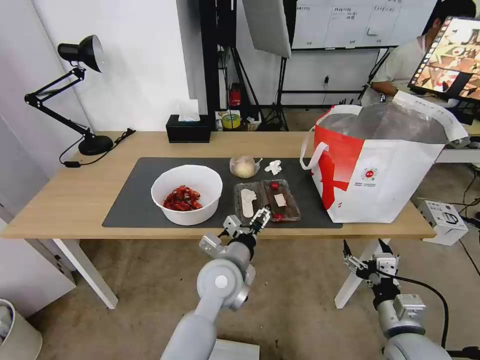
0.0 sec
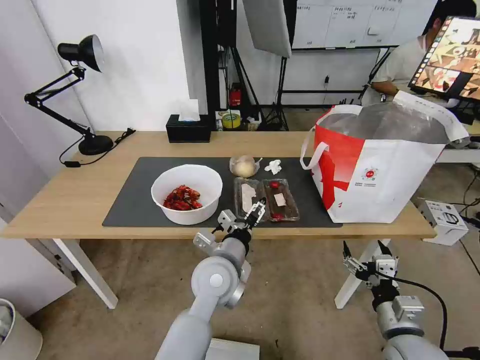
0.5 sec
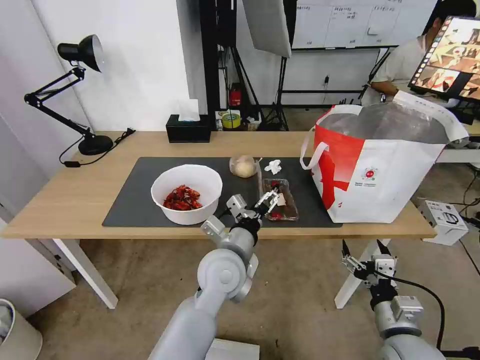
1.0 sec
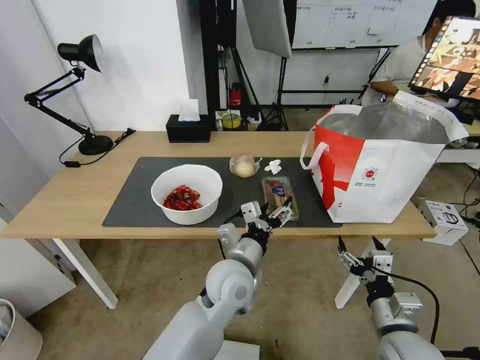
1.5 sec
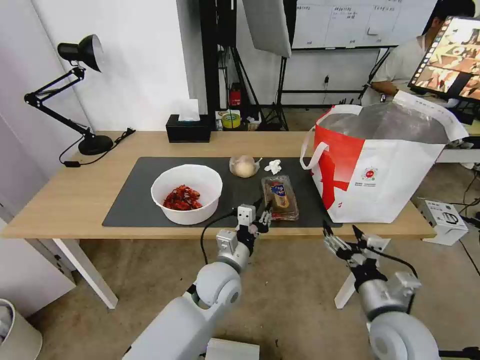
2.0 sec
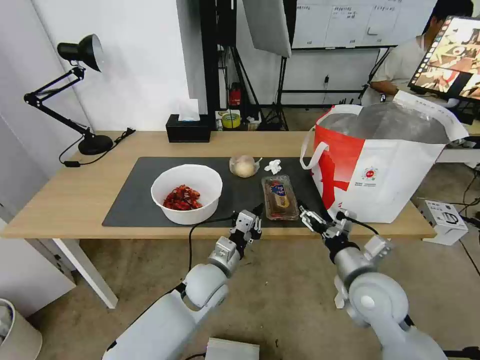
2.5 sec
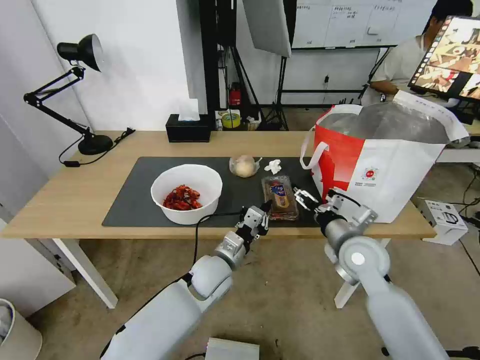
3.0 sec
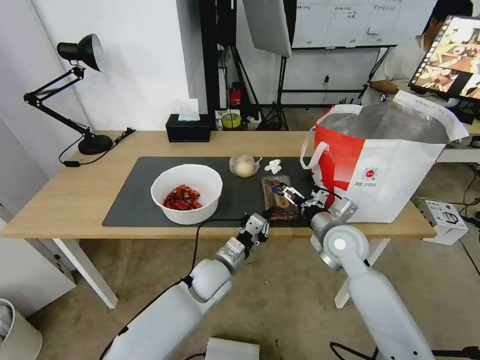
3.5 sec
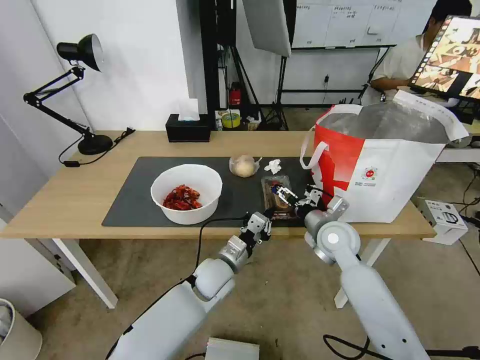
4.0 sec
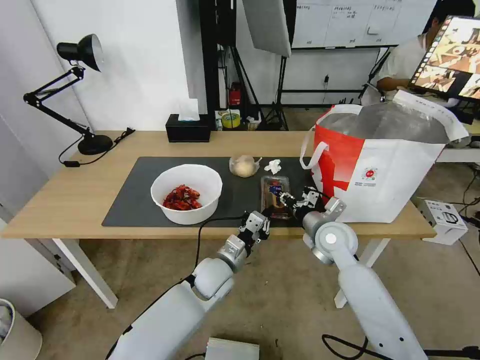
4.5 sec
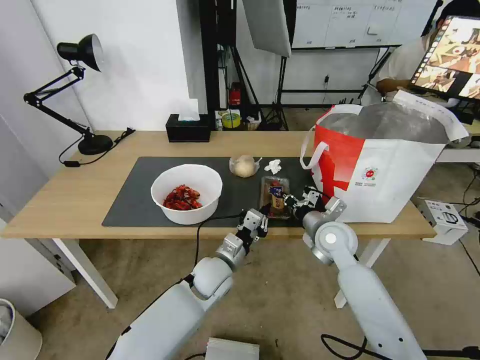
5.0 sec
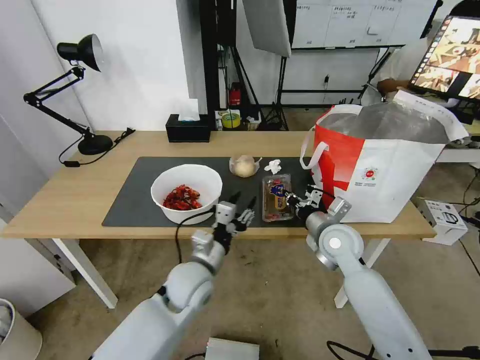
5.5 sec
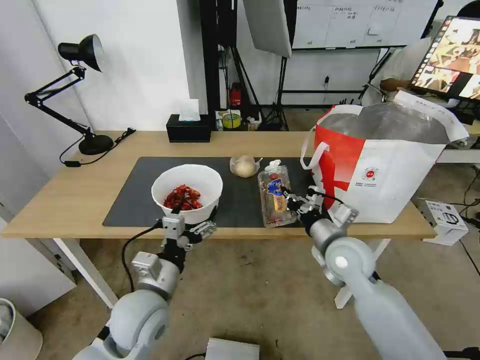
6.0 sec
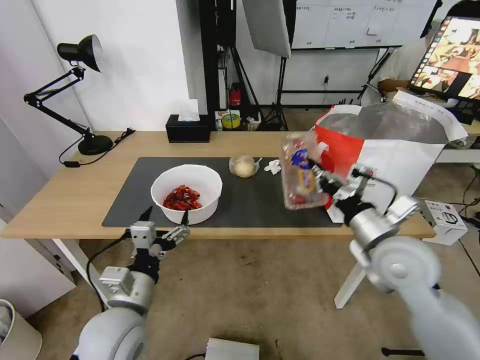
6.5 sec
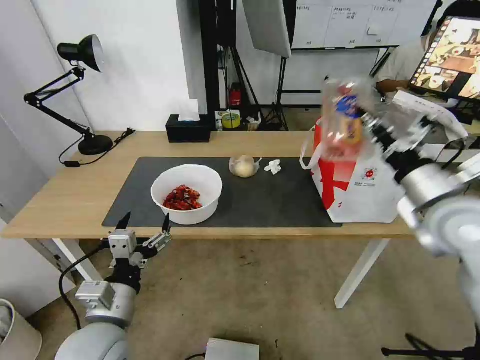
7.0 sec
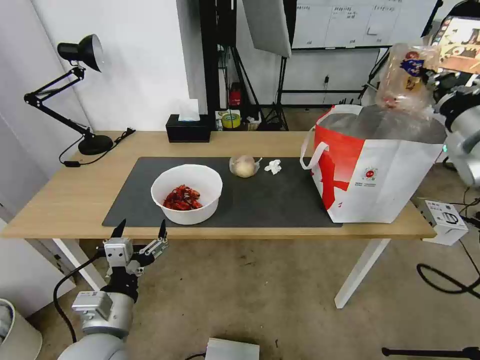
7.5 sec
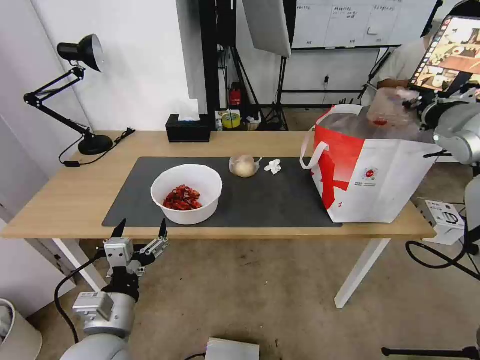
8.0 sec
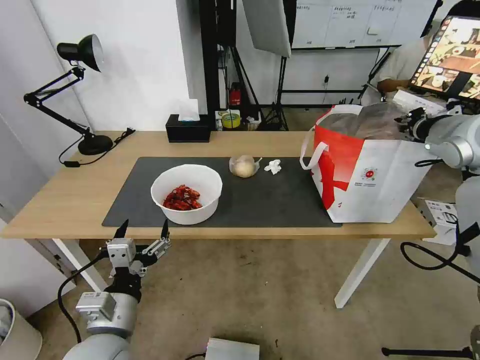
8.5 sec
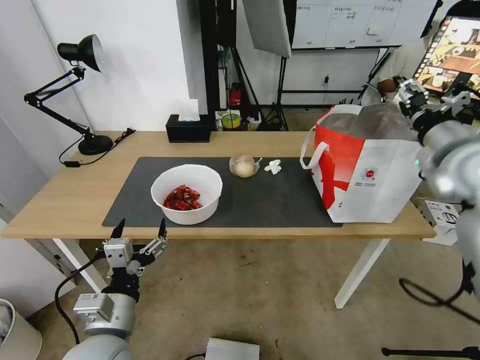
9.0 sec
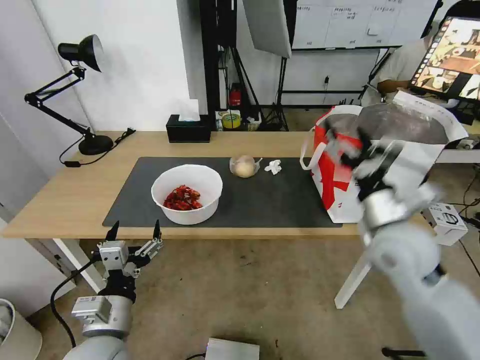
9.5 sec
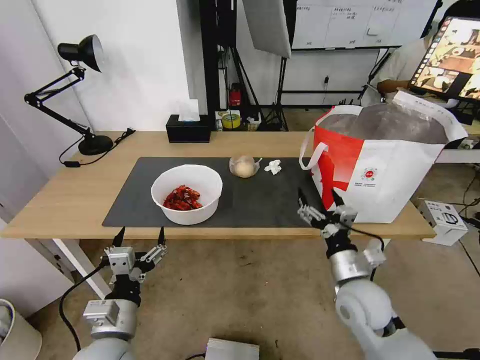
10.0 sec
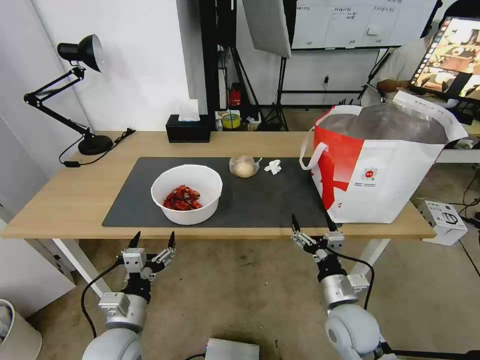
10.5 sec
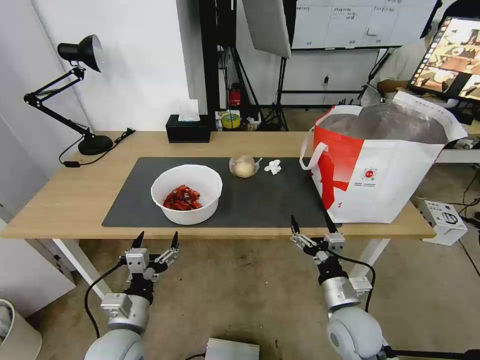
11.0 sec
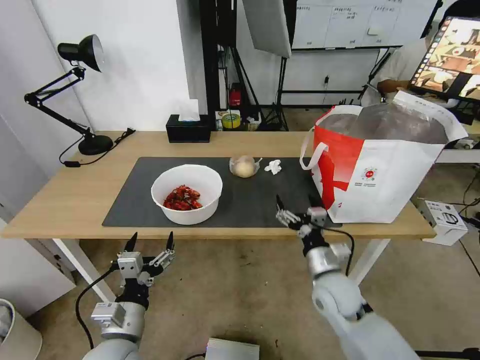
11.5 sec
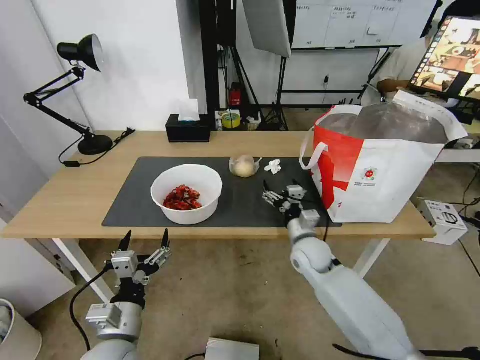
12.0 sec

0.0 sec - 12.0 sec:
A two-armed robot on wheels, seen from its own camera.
Task of the whole recording: Pick up the trash from the table and place it into the takeout bag.
0.0 sec - 2.0 sec: The right gripper moves roughly 5 cm; the left gripper closes its fingers.
2.0 sec - 4.0 sec: The left gripper changes place by some 5 cm; the right gripper heads forward, covering some 20 cm.
4.0 sec - 6.0 sec: The right gripper moves backward, about 5 cm, and closes its fingers; the left gripper shifts some 20 cm to the left, backward and upward, and opens.
6.0 sec - 8.0 sec: The left gripper heads backward, covering approximately 10 cm, while the right gripper is displaced upward and to the right by some 30 cm.
8.0 sec - 10.0 sec: The right gripper moves downward, to the left and backward, roughly 40 cm, and opens.
10.0 sec - 12.0 sec: The right gripper moves forward and to the left, approximately 15 cm.

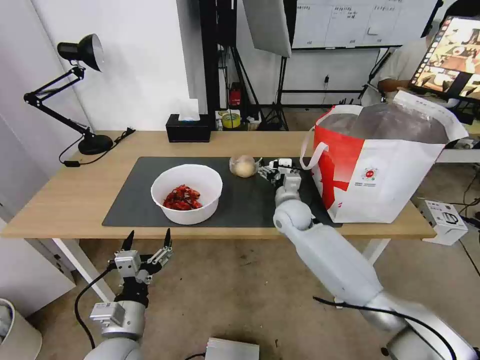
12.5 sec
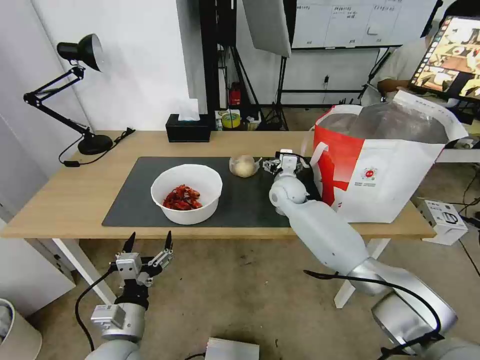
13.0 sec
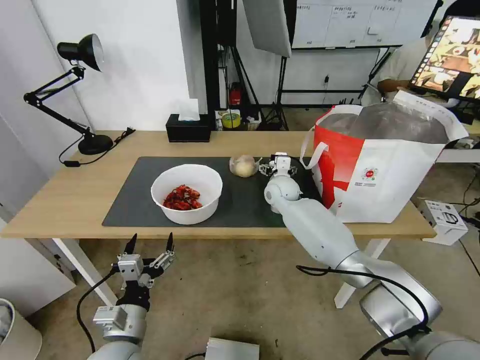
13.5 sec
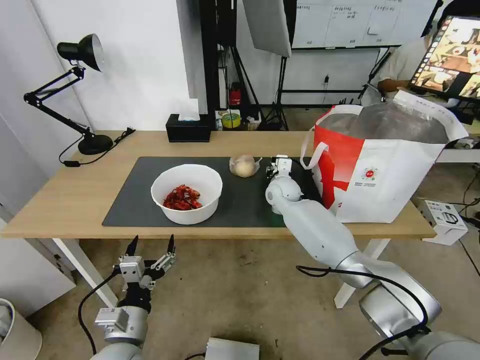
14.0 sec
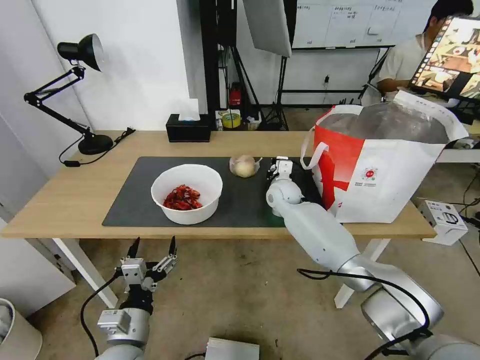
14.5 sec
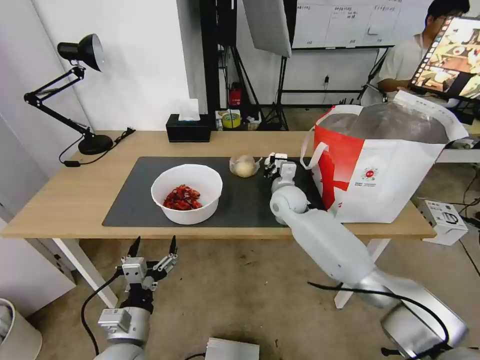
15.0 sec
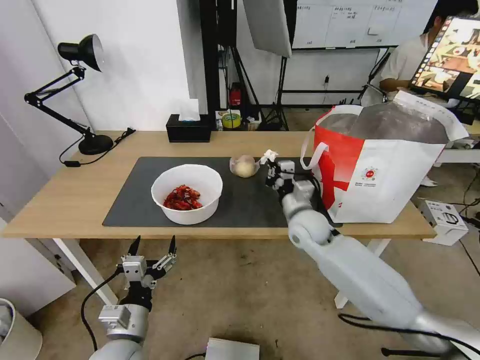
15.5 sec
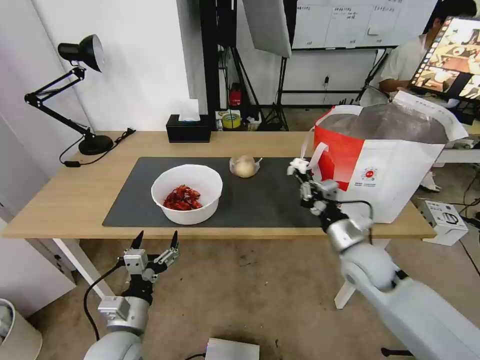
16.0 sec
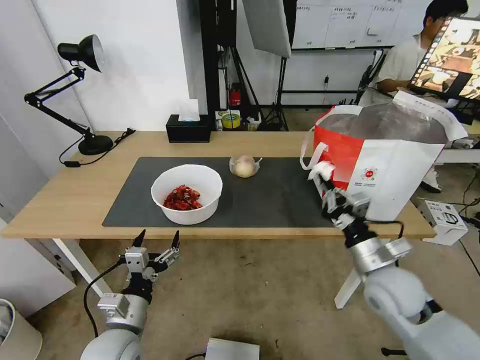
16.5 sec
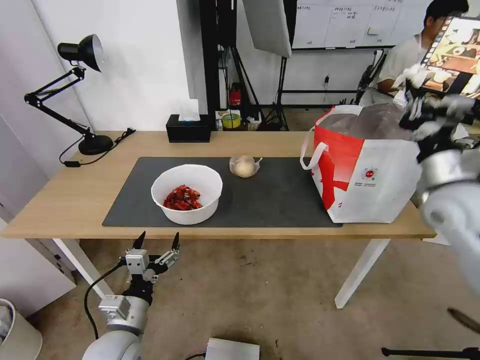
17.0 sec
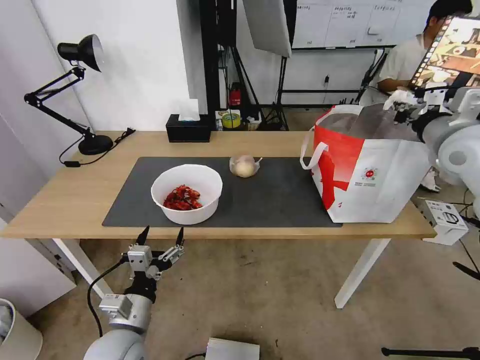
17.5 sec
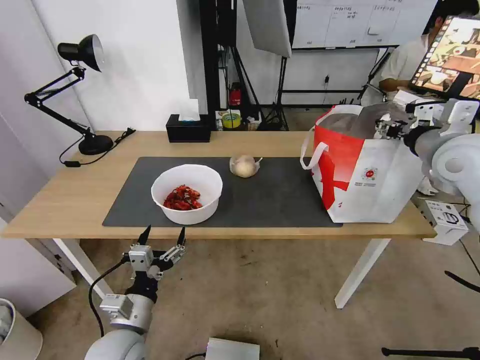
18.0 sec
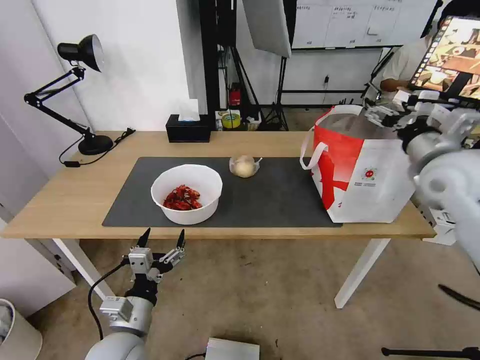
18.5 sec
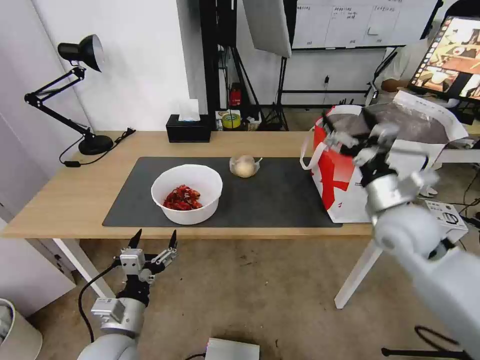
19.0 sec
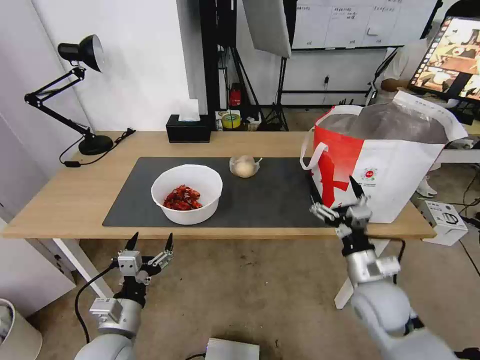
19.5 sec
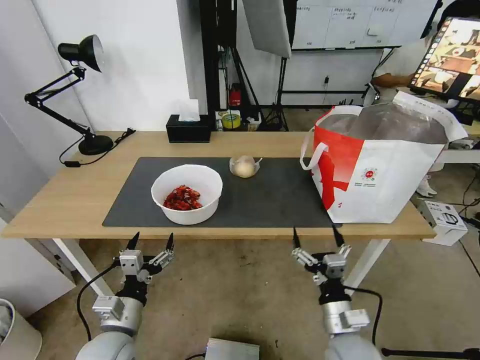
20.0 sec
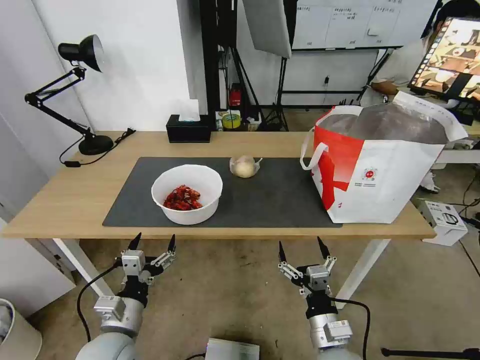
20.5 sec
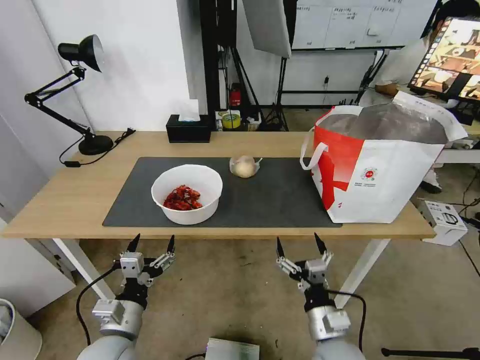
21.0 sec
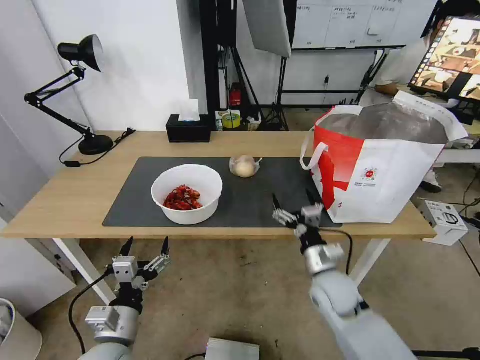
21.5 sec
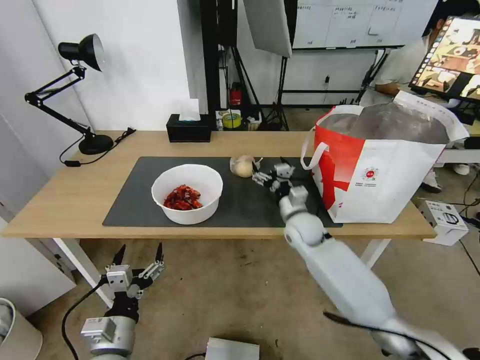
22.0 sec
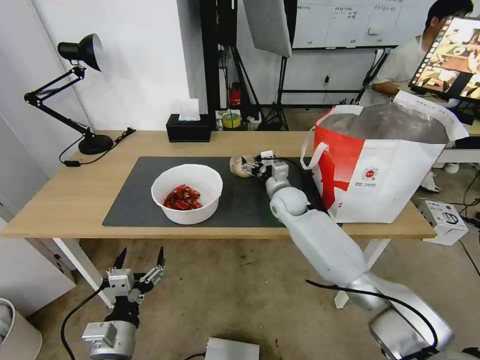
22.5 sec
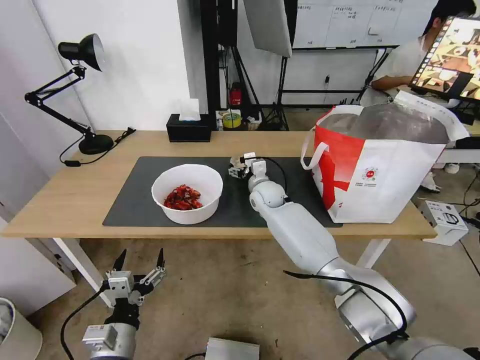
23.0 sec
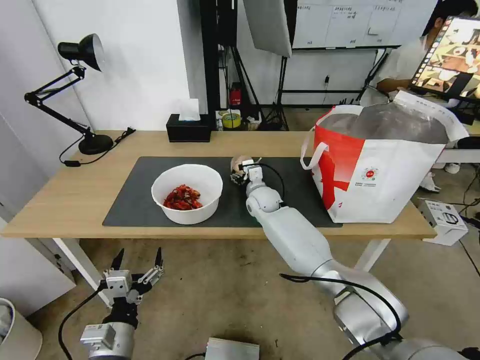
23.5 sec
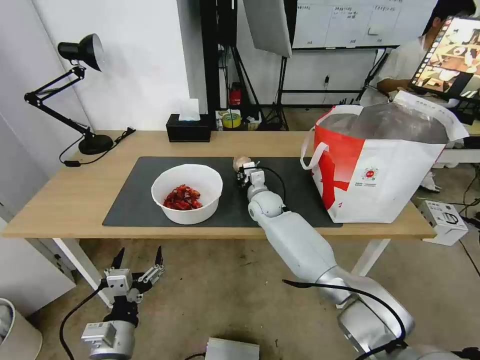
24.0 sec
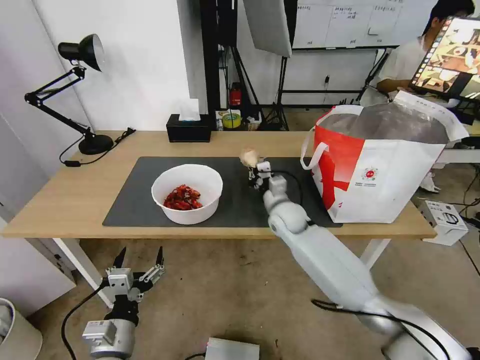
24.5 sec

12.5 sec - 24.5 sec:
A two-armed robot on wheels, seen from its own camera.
Task of the whole recording: Pick up the trash from the table and place it into the takeout bag.
12.5 sec - 14.5 sec: The right gripper heads forward, covering about 5 cm, and closes its fingers.
14.5 sec - 16.5 sec: The right gripper heads backward and to the right, covering some 35 cm.
16.5 sec - 18.5 sec: The right gripper goes some 25 cm upward, forward and to the right, and opens up.
18.5 sec - 20.5 sec: The right gripper is displaced downward, backward and to the left by some 40 cm.
20.5 sec - 22.5 sec: The right gripper shifts some 35 cm forward.
22.5 sec - 24.5 sec: The right gripper closes its fingers.

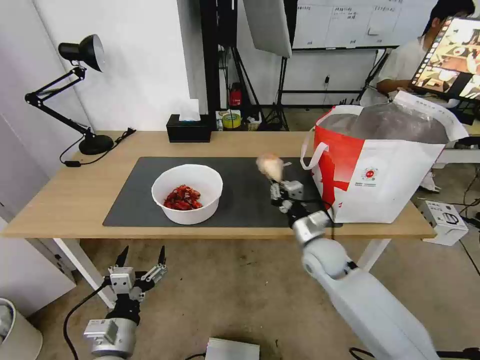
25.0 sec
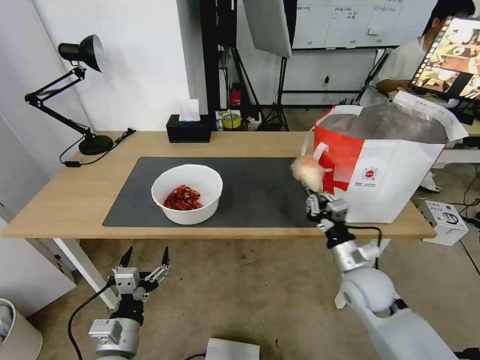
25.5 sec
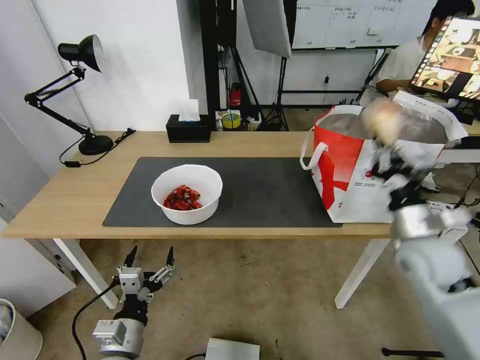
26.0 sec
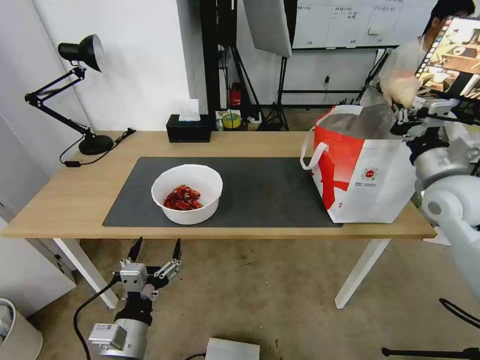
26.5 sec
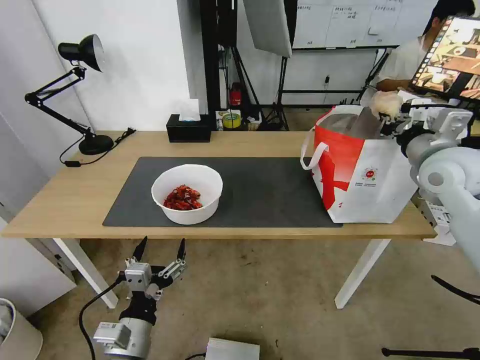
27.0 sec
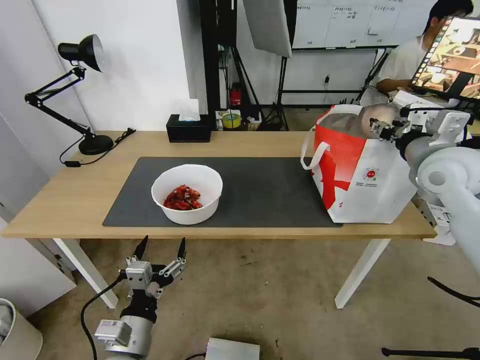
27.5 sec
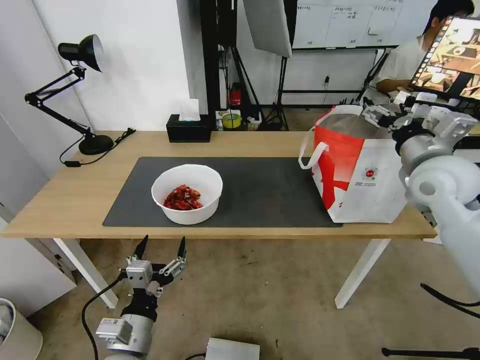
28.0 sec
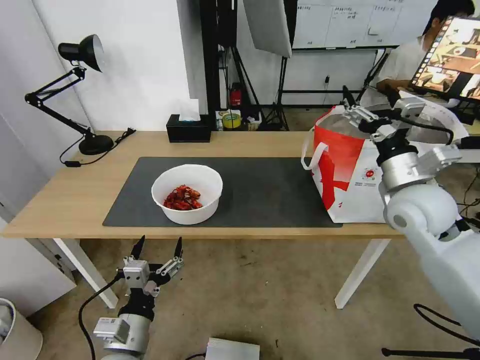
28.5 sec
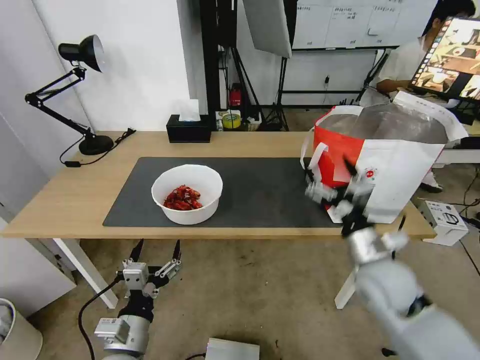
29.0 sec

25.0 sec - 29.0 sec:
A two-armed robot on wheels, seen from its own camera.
Task of the whole recording: Pick up the trash from the table and place it into the takeout bag.
25.0 sec - 27.0 sec: The right gripper shifts about 30 cm upward and to the right; the left gripper moves approximately 5 cm.
27.0 sec - 29.0 sec: The right gripper moves downward, backward and to the left, some 25 cm, and opens up.
